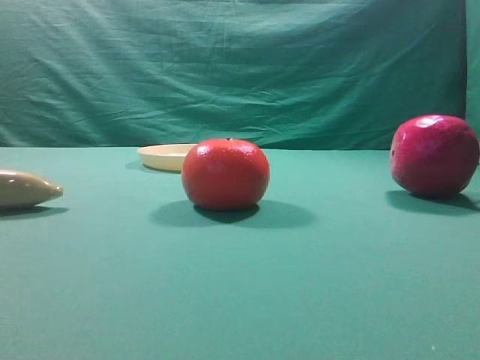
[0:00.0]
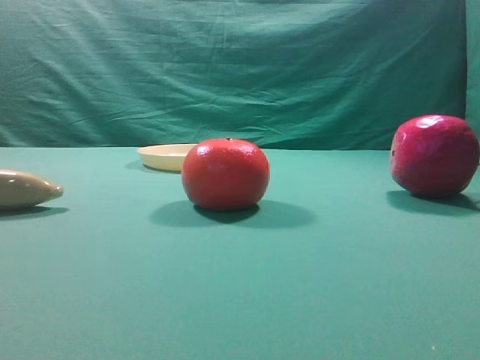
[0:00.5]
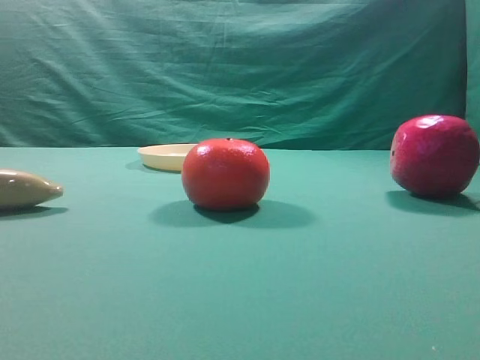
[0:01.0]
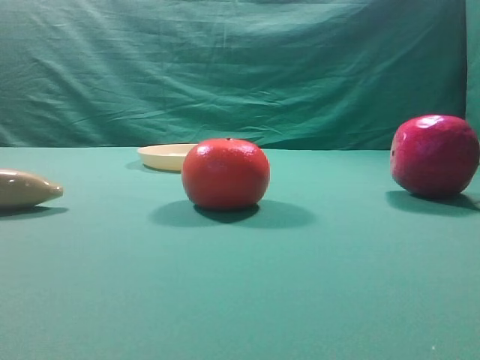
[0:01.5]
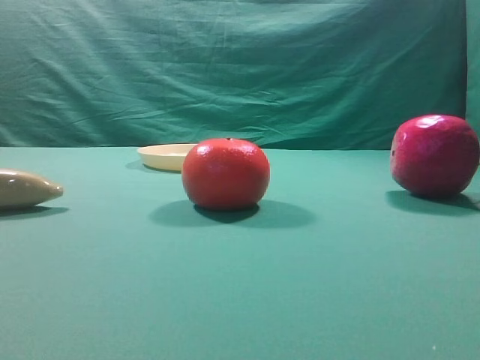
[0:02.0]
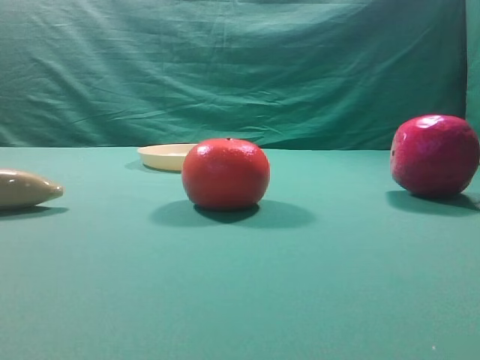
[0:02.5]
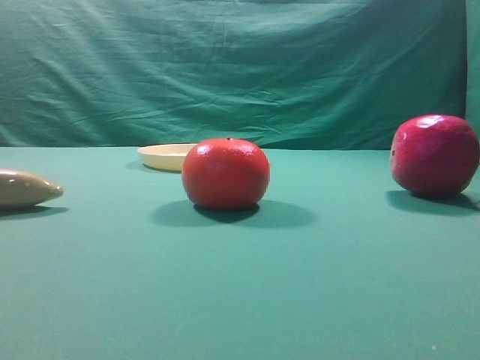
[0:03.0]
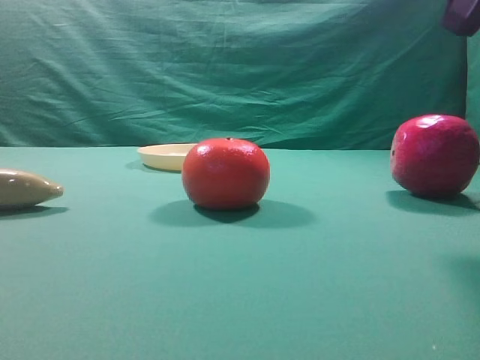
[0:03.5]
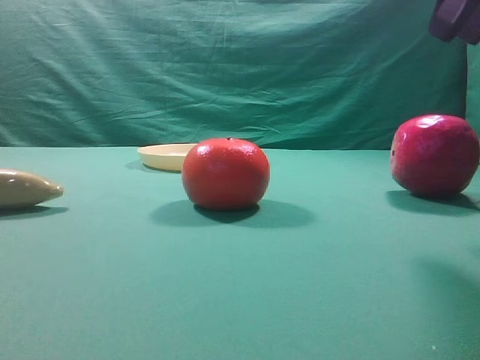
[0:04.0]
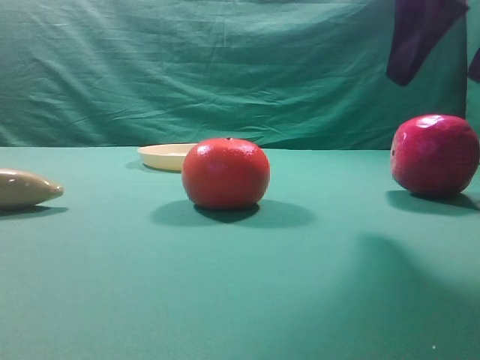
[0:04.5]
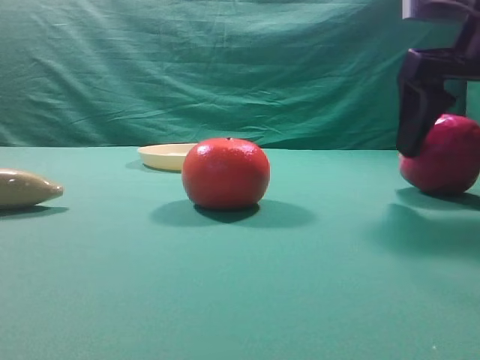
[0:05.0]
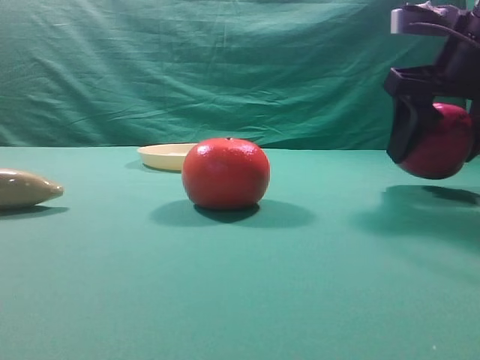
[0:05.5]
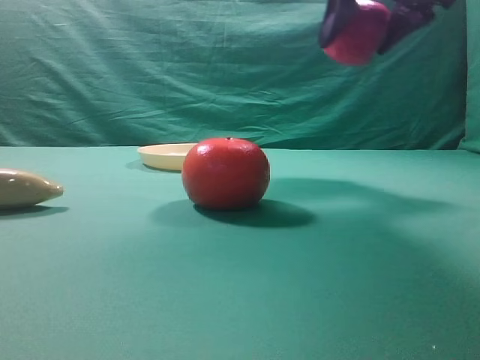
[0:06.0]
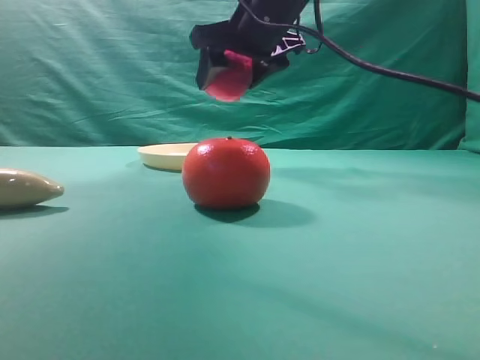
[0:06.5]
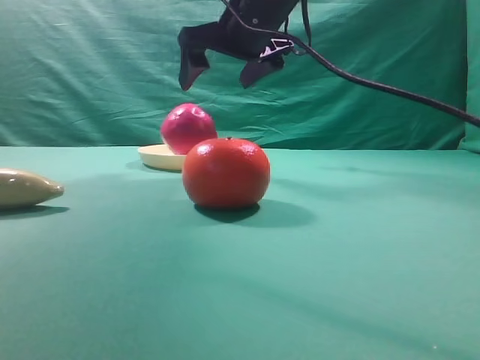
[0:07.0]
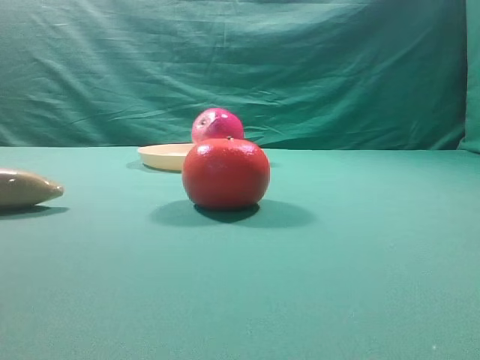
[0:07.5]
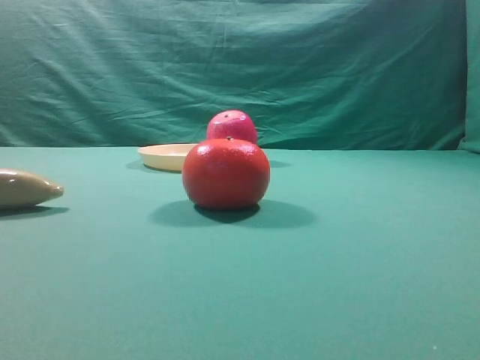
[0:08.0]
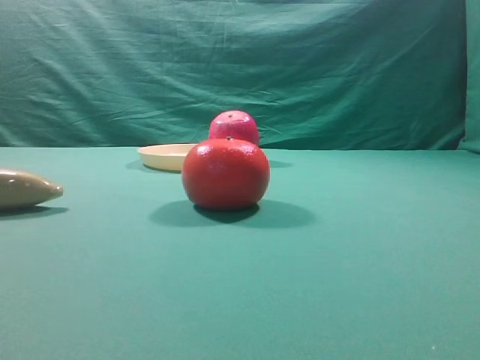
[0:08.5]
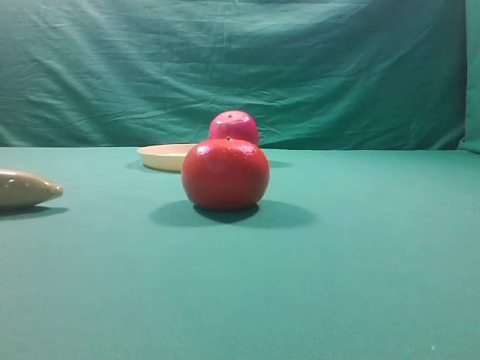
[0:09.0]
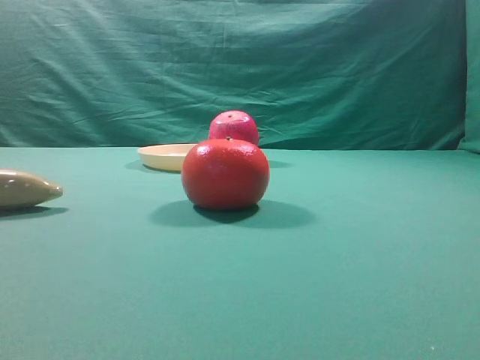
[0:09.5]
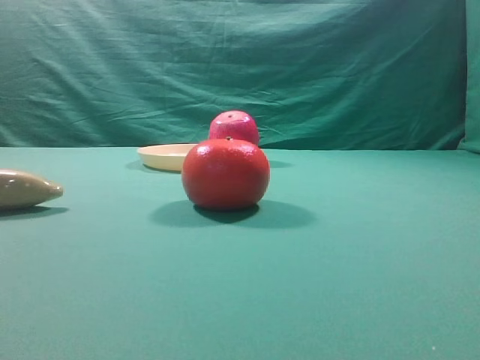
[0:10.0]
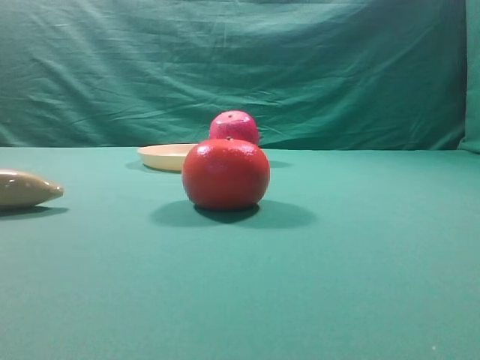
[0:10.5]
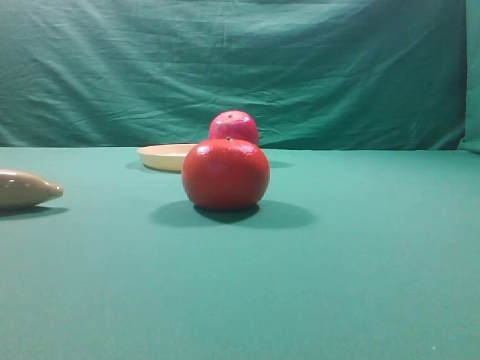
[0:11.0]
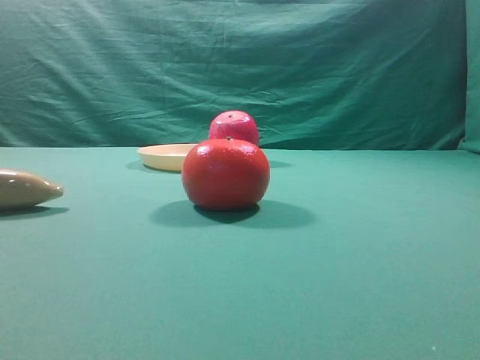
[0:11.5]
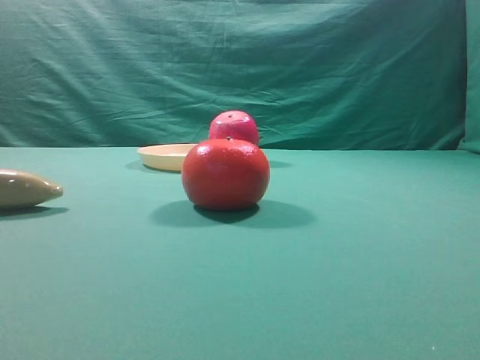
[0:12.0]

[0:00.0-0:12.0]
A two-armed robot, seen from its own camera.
Task of the whole recording: grasp the apple and place it into the yellow plate.
Step, 0:00.0 to 0:06.0: Grasp the fruit that can keep the doctor away.
Step, 0:06.5 to 0:07.0: Place the picked object into the yellow plate.

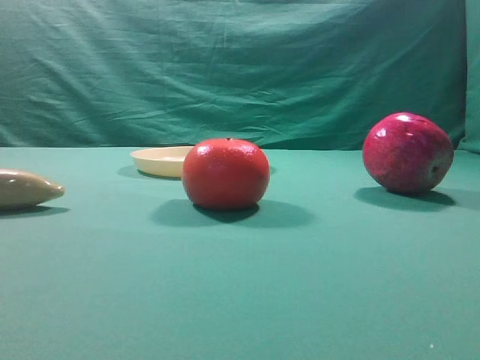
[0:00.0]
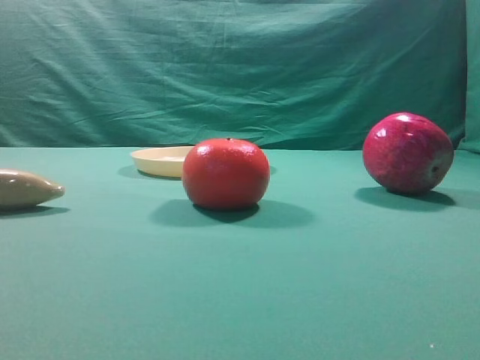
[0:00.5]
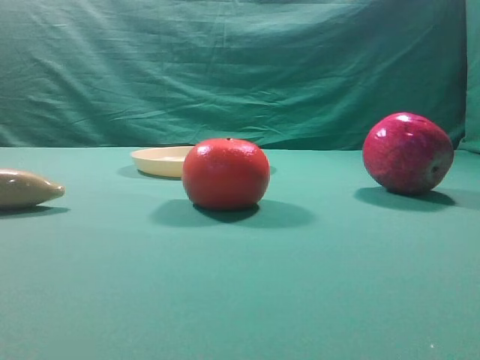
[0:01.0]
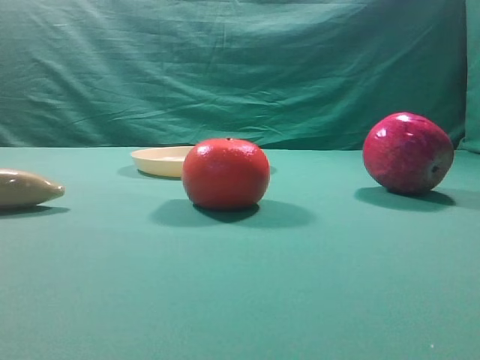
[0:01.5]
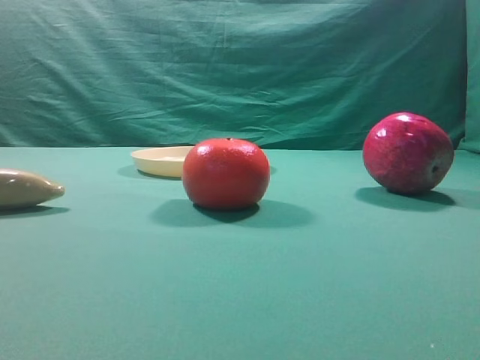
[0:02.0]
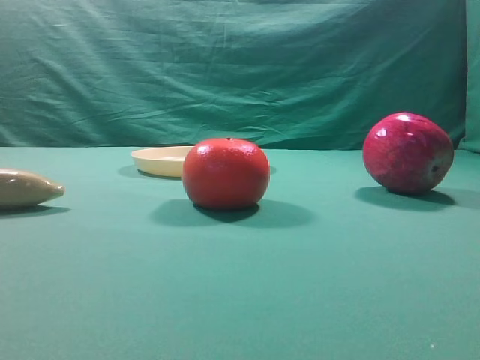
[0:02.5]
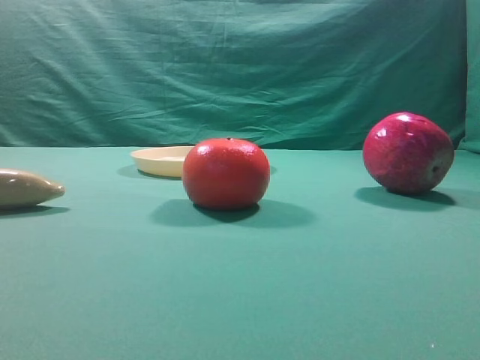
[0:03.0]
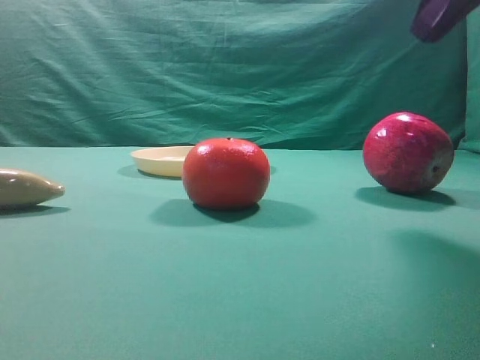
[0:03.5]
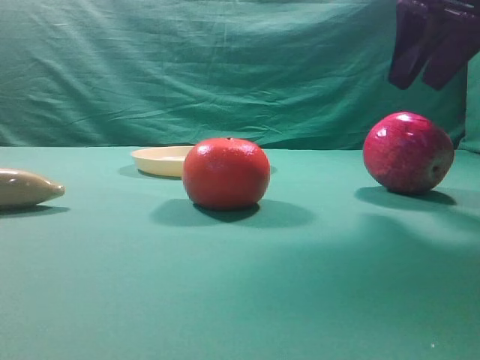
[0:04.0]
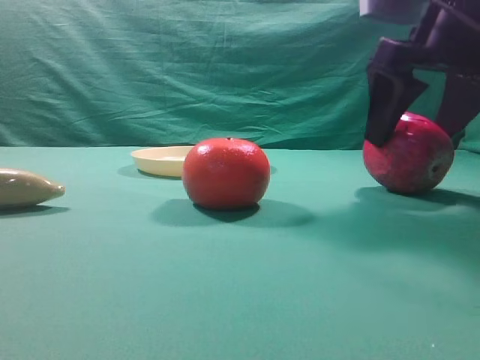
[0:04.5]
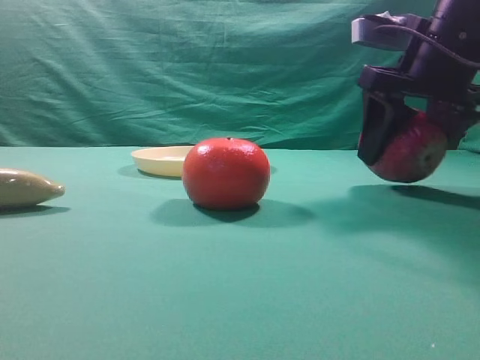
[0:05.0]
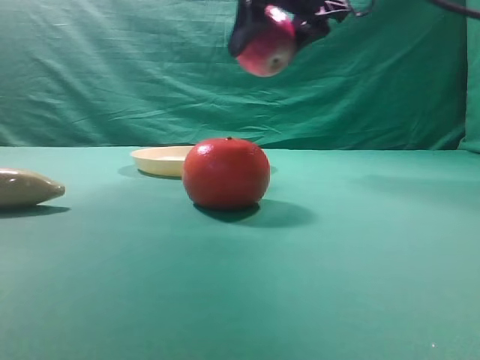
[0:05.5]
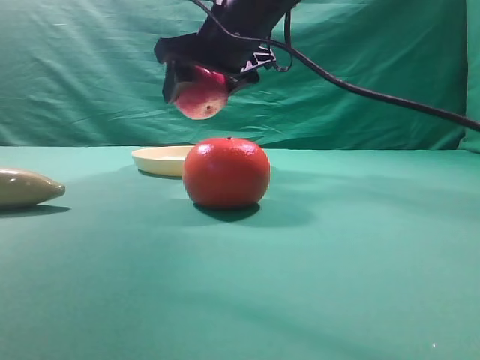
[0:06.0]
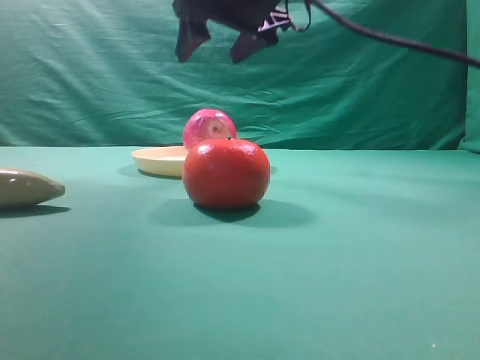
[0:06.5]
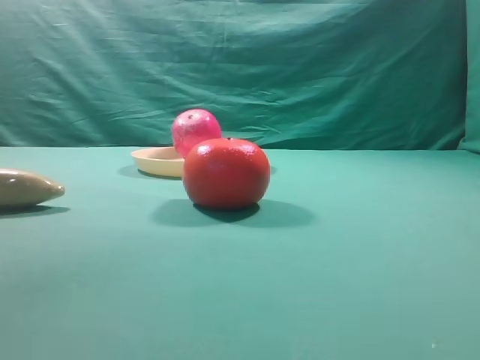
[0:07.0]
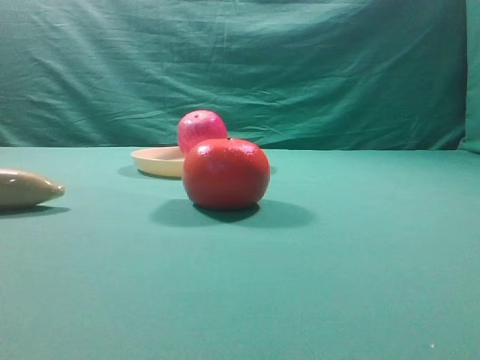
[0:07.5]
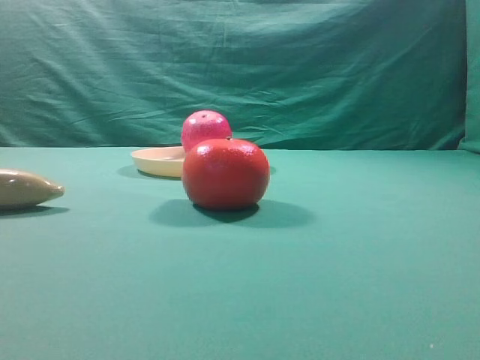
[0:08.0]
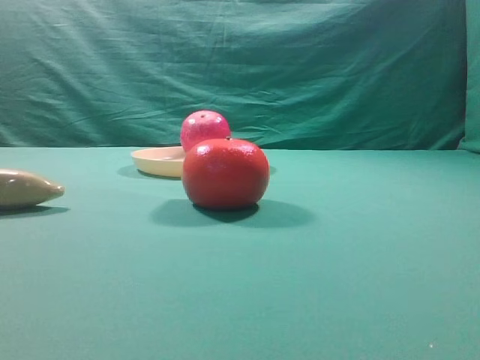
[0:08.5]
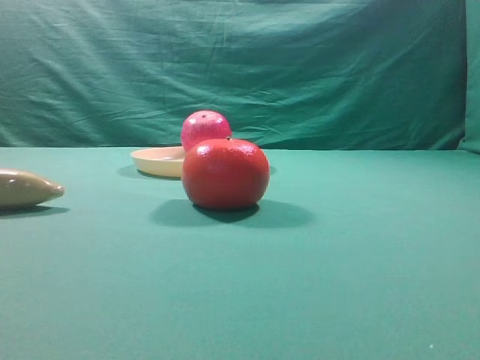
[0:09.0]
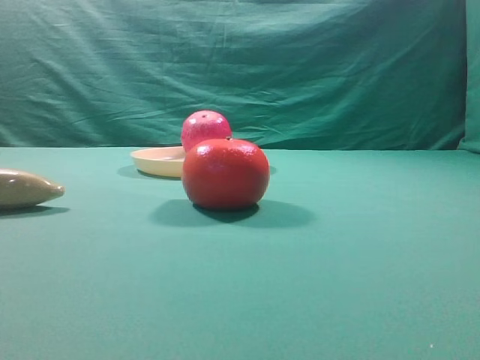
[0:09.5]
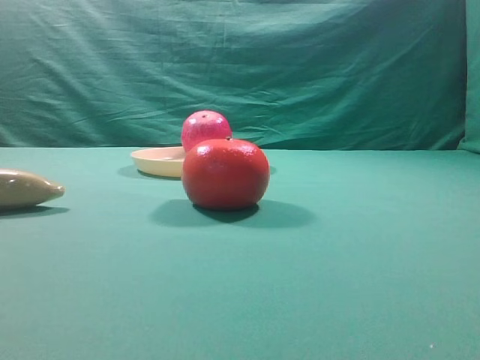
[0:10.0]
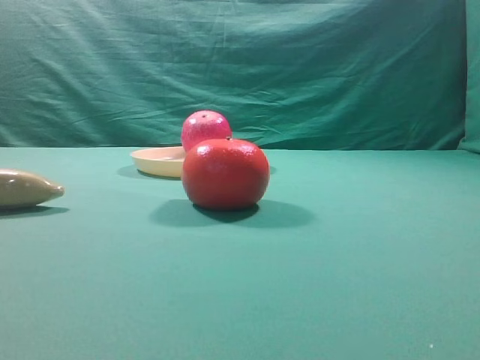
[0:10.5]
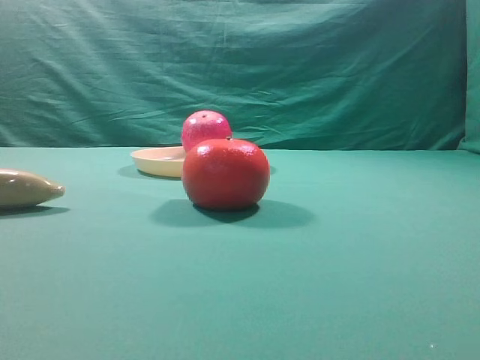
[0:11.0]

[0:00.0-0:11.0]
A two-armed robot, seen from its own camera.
Task of the whole recording: grasp the apple and place it into the yellow plate.
Step, 0:00.0 to 0:05.0: Grasp the fruit that can keep the doctor away.
Step, 0:05.5 to 0:06.0: Place the picked object into the yellow plate.

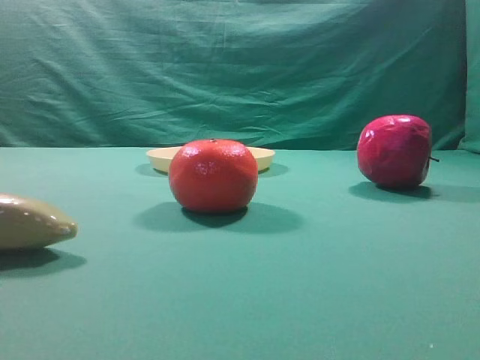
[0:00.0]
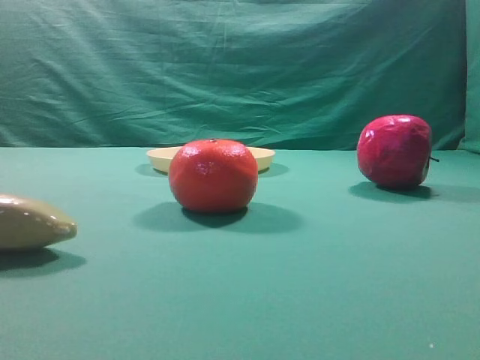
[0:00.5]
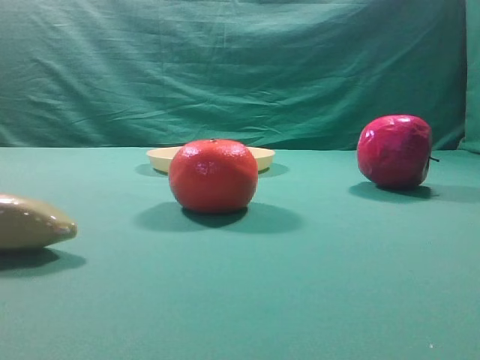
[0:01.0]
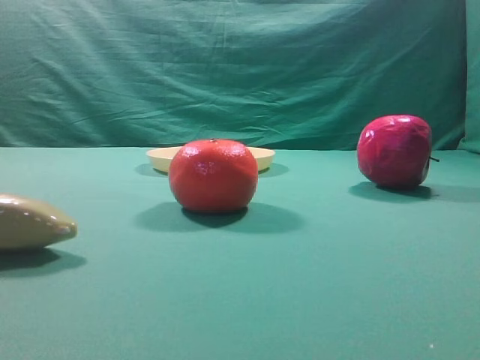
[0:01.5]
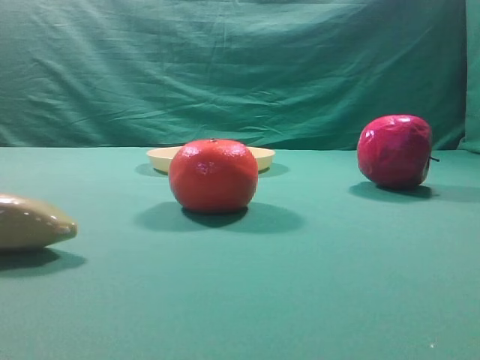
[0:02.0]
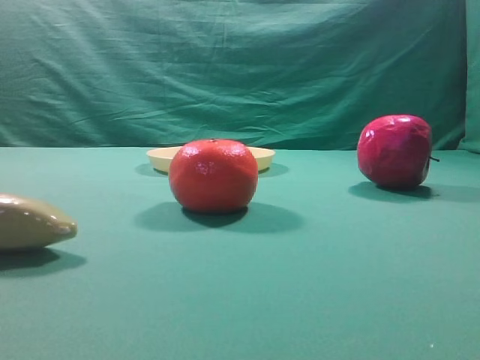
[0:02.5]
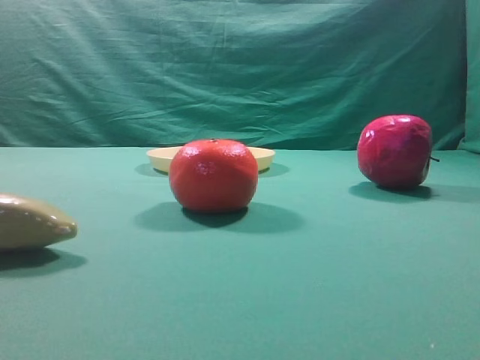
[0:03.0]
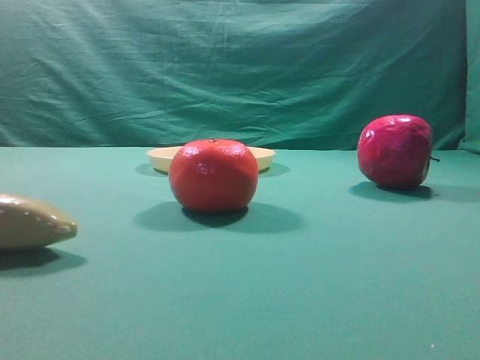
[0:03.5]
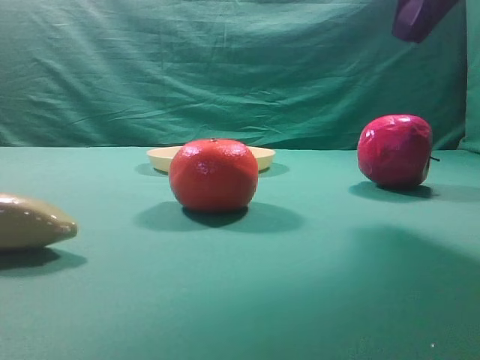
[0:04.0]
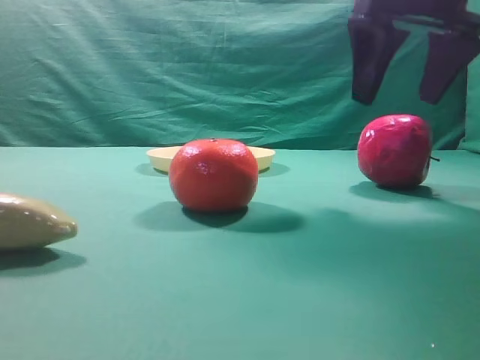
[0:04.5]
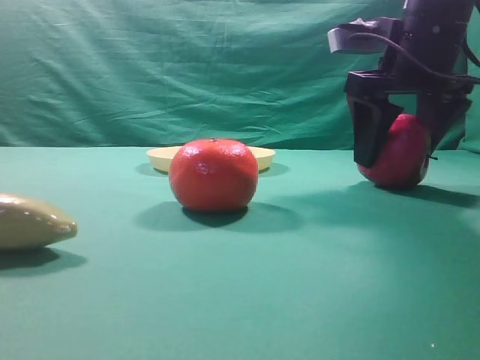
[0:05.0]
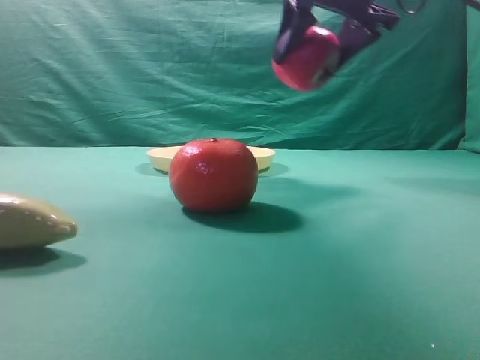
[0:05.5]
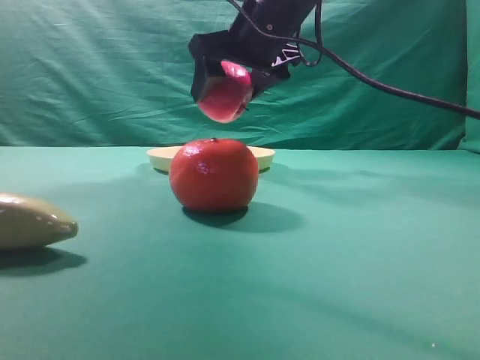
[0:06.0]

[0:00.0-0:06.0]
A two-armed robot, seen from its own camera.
Task of the whole recording: grasp the apple and place it into the yellow plate.
Step, 0:00.0 to 0:05.0: Grasp the fruit that can keep the doctor away.
